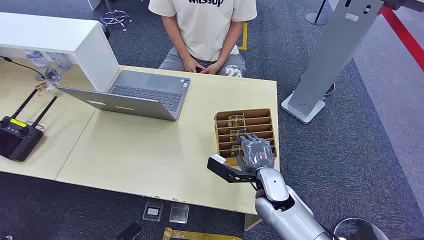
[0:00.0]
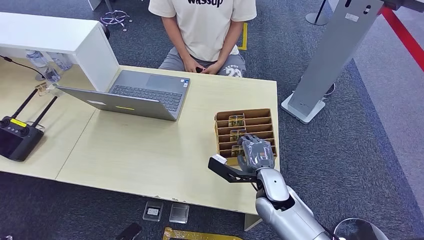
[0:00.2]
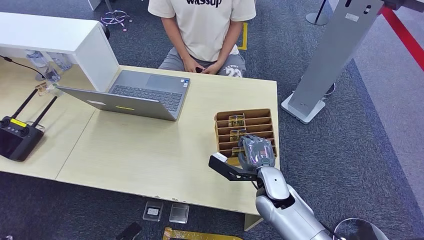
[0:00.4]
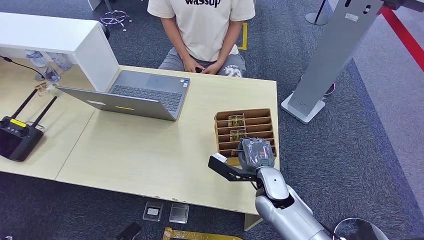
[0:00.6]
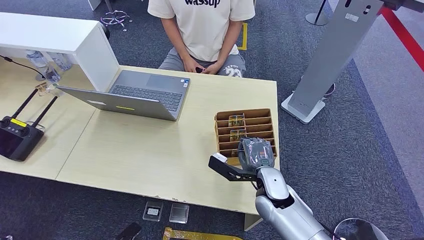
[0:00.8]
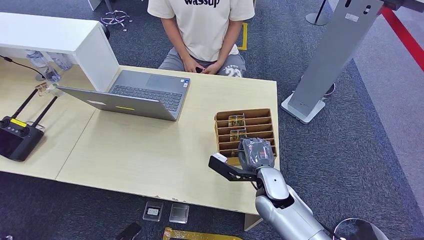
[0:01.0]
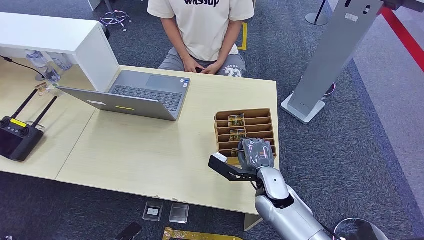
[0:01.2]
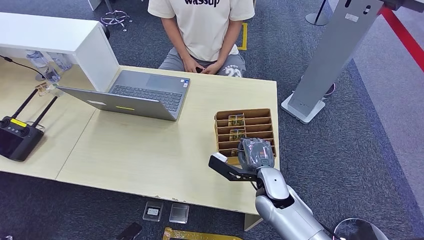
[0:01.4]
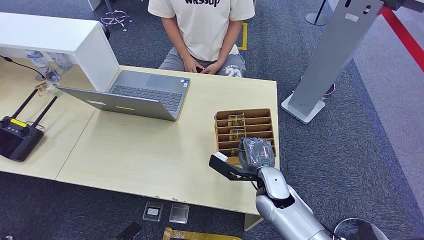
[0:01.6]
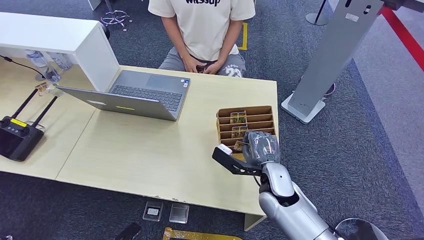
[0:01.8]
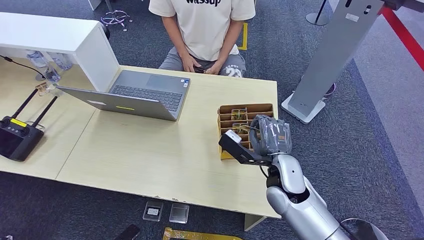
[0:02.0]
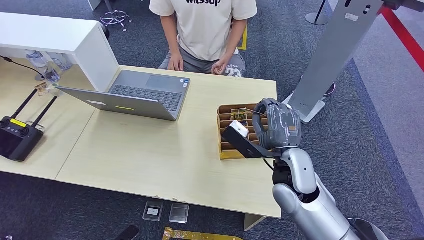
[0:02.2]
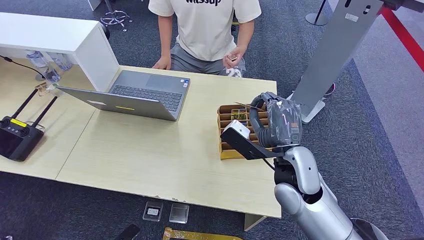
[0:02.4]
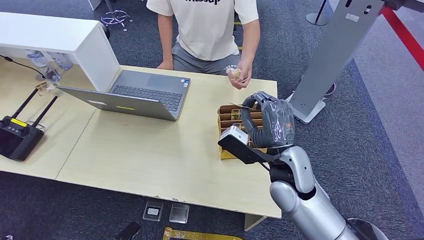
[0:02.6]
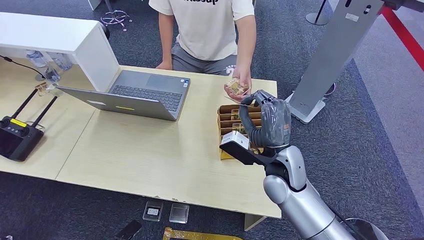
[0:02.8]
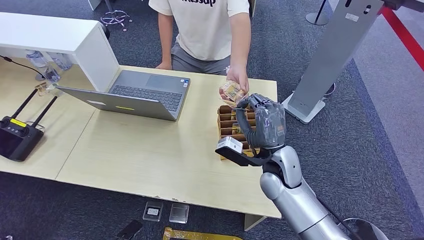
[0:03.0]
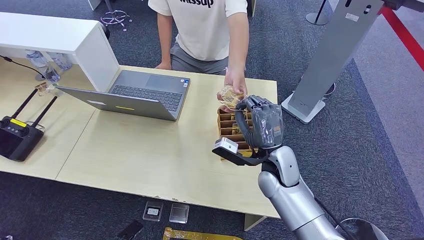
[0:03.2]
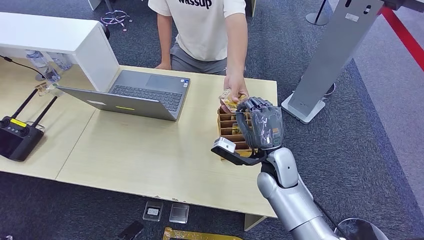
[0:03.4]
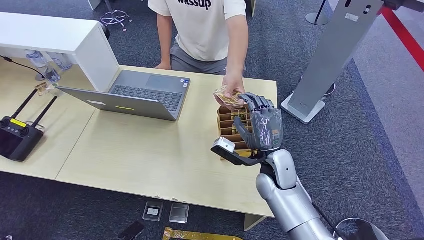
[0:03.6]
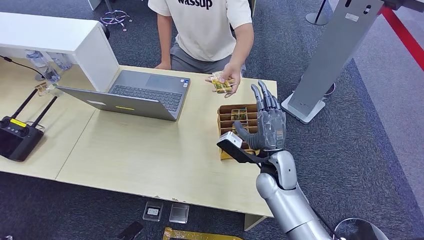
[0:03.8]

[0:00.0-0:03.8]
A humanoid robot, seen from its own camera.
Step, 0:00.0 to 0:01.8: Pick up the key card from the card box.
Step, 0:02.4 to 0:03.8: Hand the key card to the target.
0:01.2 to 0:02.6: The right hand goes about 10 cm upward.
0:02.6 to 0:03.8: The right hand moves downward, about 5 cm.

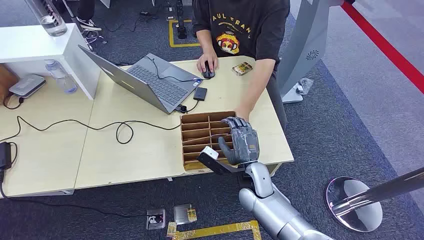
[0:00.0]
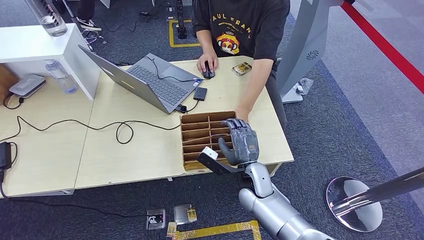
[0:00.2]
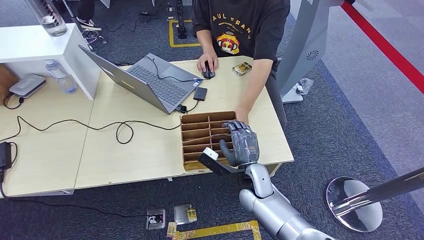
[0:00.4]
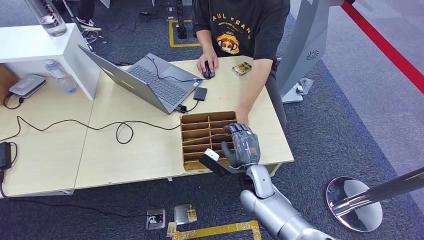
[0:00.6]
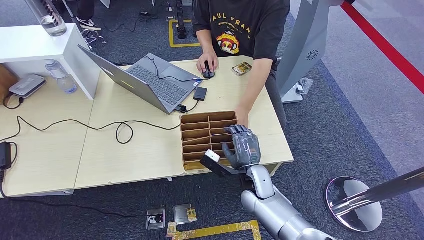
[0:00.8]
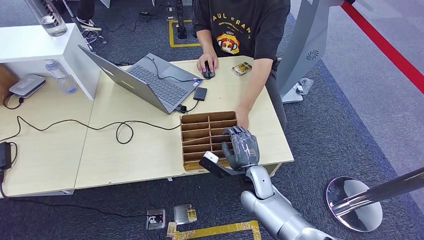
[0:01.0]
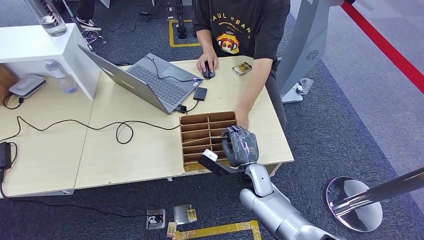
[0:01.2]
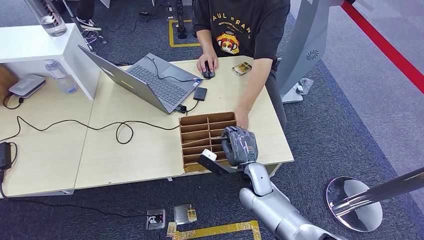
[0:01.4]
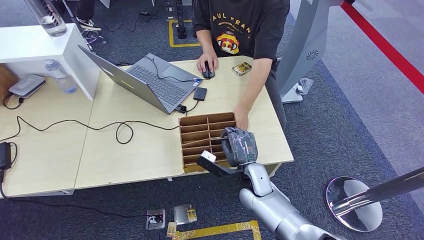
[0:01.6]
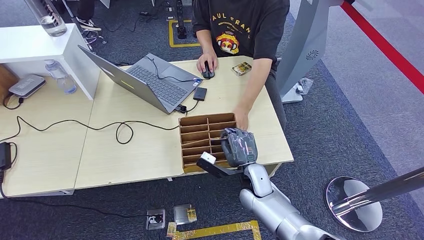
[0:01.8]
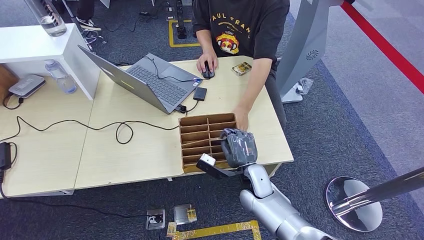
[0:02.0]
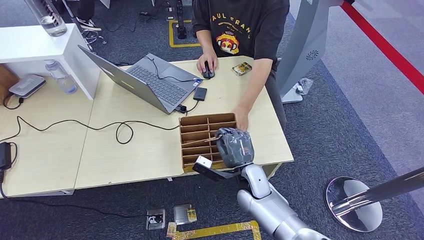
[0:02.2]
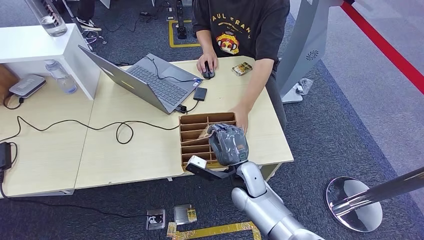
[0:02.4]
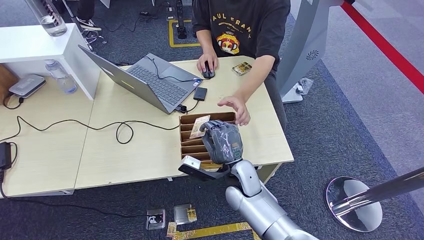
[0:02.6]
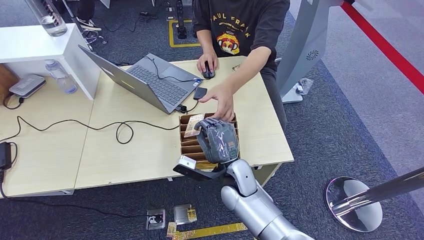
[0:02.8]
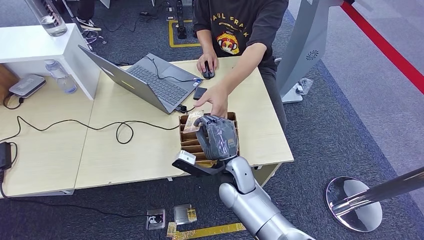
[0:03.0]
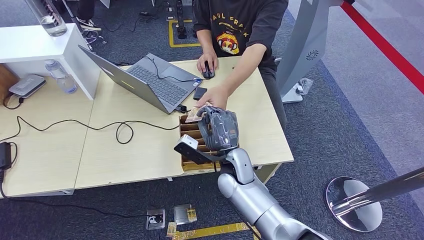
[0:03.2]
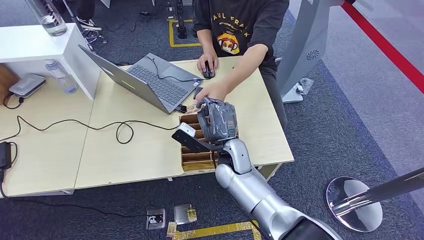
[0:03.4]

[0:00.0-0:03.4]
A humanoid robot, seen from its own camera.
Step, 0:00.0 to 0:02.4: Pick up the key card from the card box.
Step, 0:02.8 to 0:03.2: Hand the key card to the target.
0:01.6 to 0:03.4: The right hand travels upward, to the left and forward by some 10 cm.
